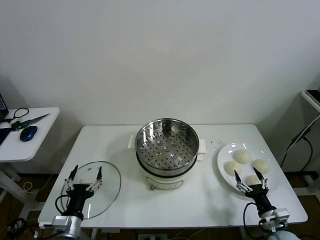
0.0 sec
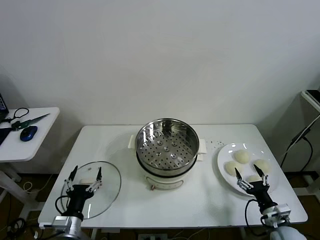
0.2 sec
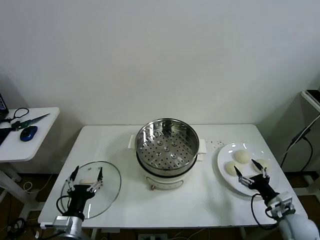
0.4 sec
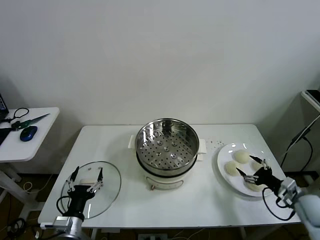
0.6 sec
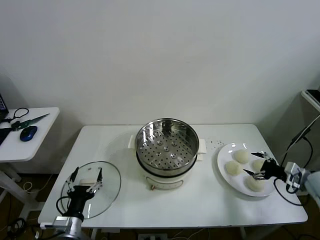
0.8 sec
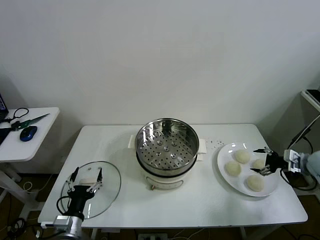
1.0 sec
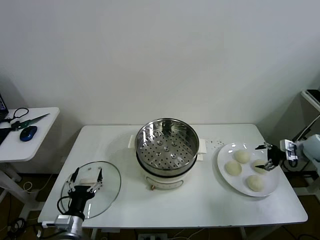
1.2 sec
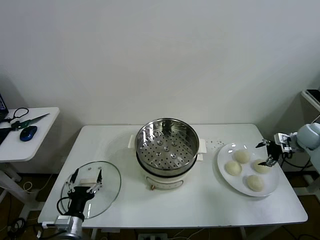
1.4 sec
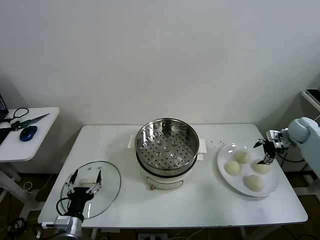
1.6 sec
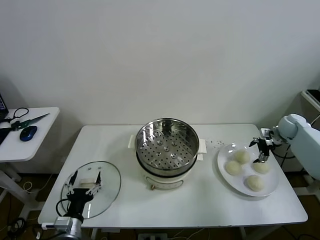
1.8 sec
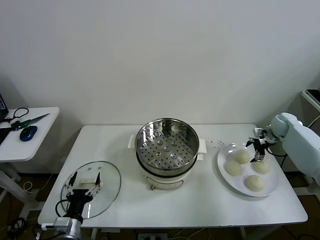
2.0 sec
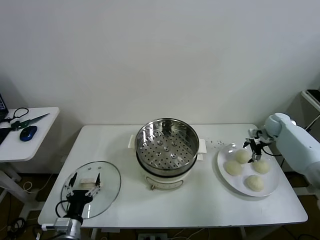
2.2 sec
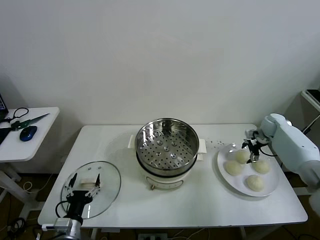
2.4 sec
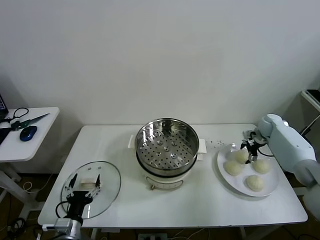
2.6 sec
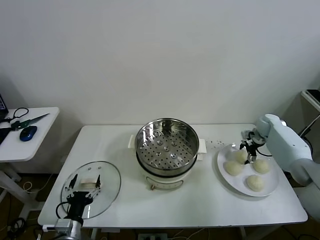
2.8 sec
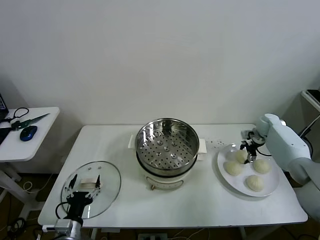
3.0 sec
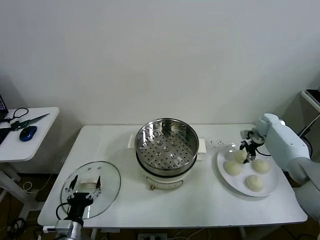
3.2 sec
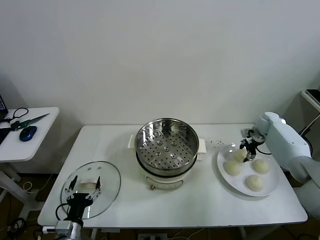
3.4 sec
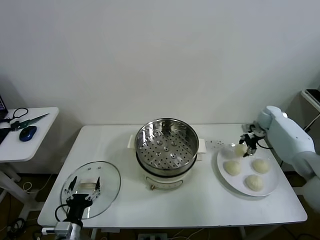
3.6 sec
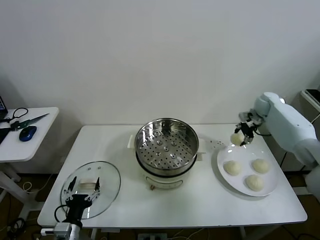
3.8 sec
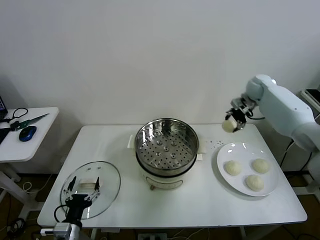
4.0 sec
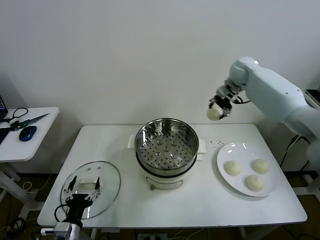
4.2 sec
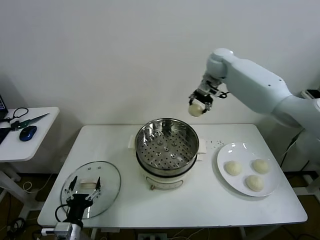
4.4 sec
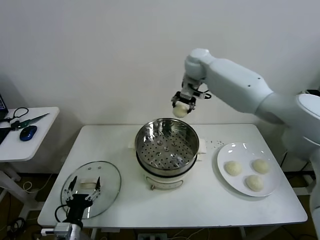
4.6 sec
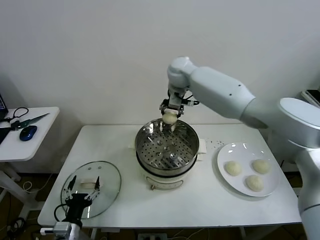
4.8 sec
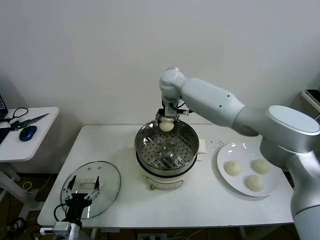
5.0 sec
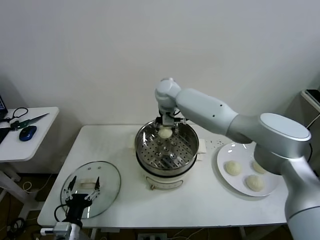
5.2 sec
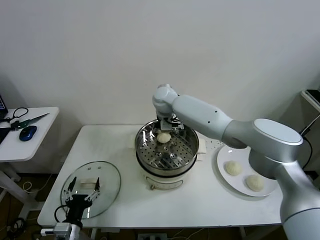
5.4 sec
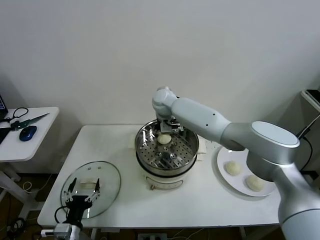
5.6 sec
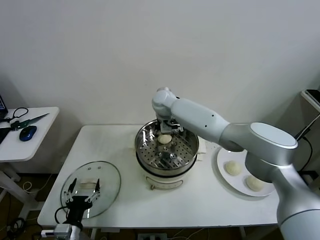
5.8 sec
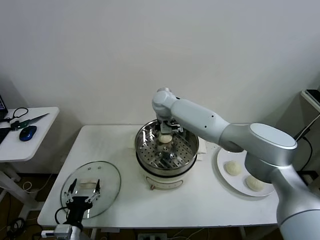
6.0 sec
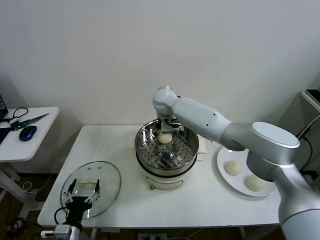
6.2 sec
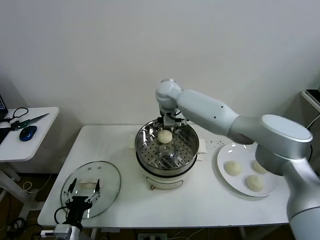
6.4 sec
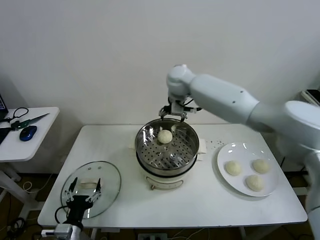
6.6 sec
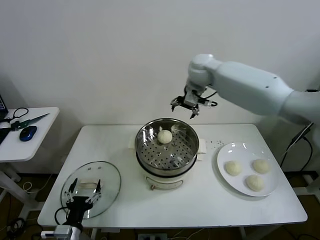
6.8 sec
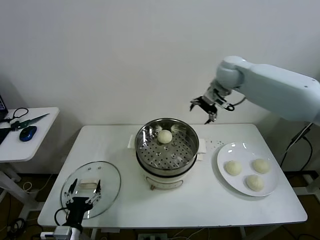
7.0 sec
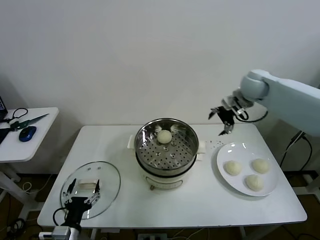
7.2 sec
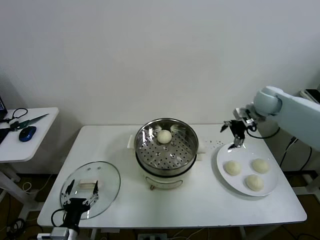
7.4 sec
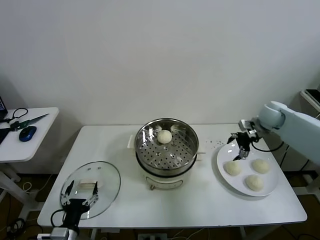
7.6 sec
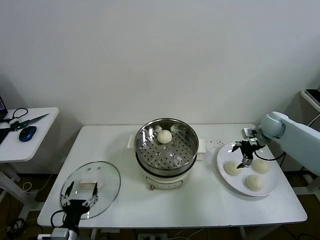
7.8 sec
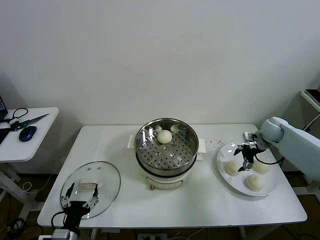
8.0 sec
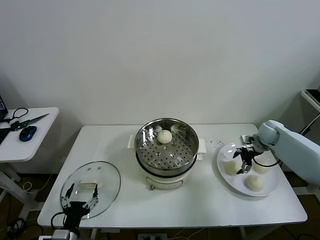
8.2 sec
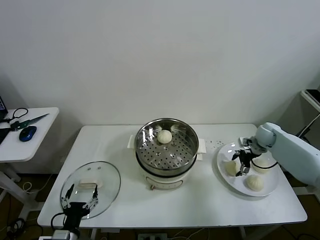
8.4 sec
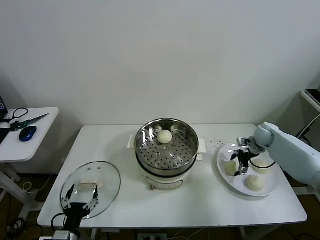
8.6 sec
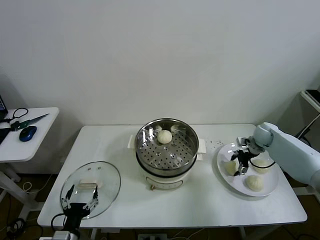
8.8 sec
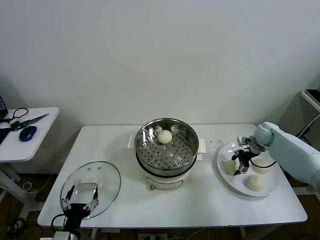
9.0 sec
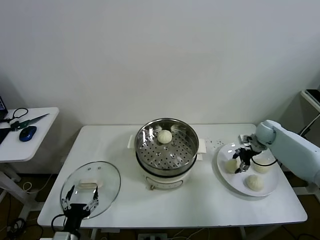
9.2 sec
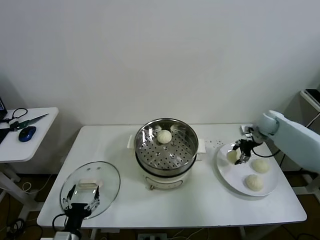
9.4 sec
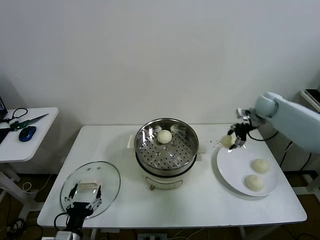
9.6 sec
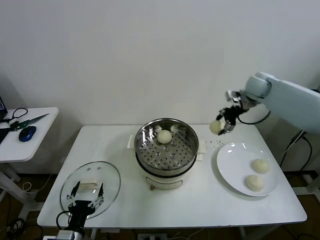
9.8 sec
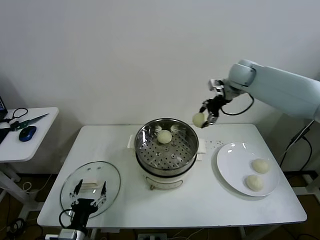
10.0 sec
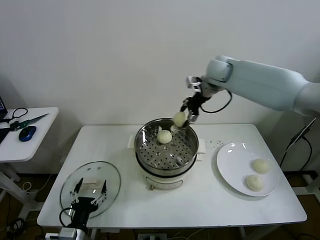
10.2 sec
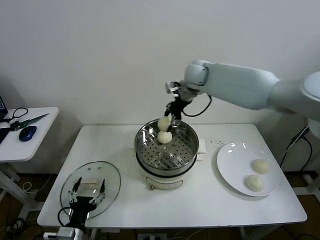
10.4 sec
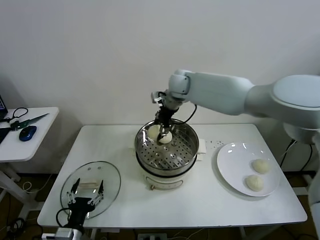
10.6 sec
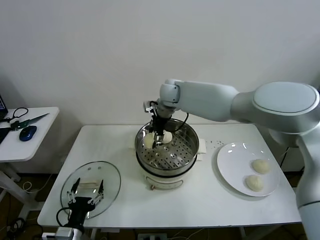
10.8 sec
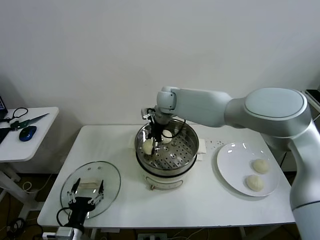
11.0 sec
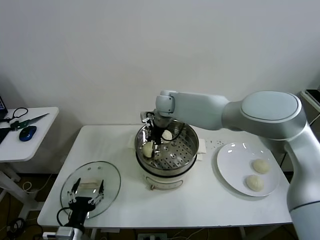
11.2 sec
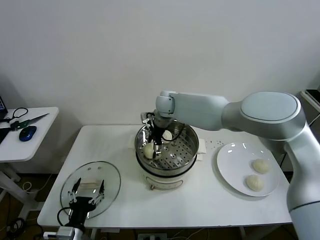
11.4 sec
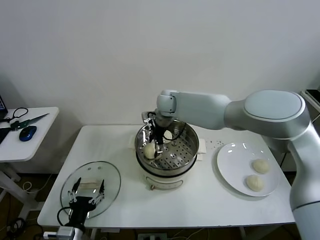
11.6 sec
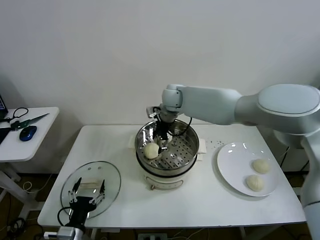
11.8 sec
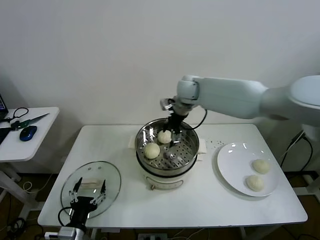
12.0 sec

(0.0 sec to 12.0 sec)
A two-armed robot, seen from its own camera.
Task of the whole recording: take steamed baozi put them in steamer then cover it.
Step, 0.0 sec - 3.2 sec: Grasp the baozi in the plate with right gripper.
Step, 3.4 sec - 6.2 sec: Place the baozi on the steamer with right gripper.
Step, 6.4 sec - 9.0 sec: Grasp the baozi in the plate with right gripper.
Step, 9.2 sec - 11.4 sec: Place the baozi on the steamer with right gripper.
1.6 sec - 3.0 sec: The right gripper goes about 10 cm to the left and forward, and closes up.
3.0 sec - 4.4 sec: The right gripper is displaced to the left and upward by some 40 cm.
4.4 sec - 6.0 sec: The right gripper heads to the left and downward, covering approximately 20 cm, and opens.
6.0 sec - 7.6 sec: The right gripper shifts approximately 40 cm to the right.
7.6 sec - 9.0 sec: The right gripper travels downward by about 10 cm, and closes its fingers.
9.0 sec - 10.4 sec: The right gripper heads to the left and upward, covering approximately 40 cm.
10.4 sec - 12.0 sec: The right gripper reaches approximately 10 cm downward, then returns, and opens.

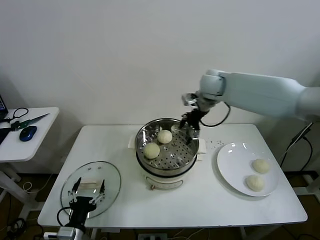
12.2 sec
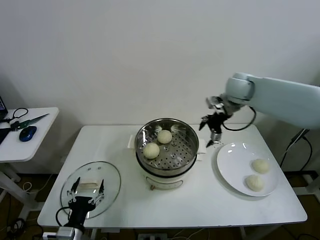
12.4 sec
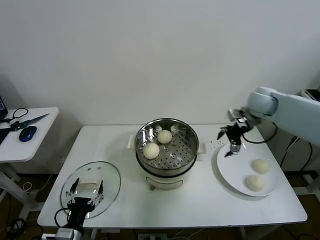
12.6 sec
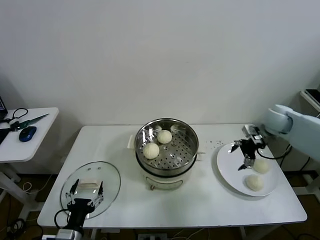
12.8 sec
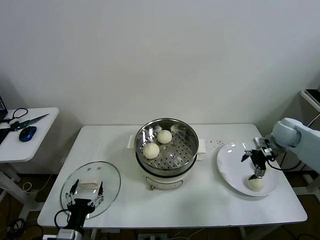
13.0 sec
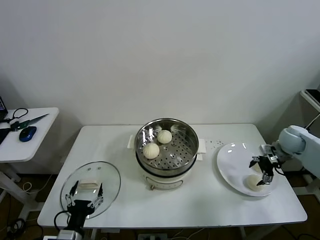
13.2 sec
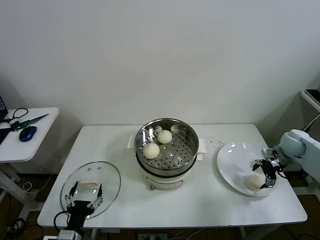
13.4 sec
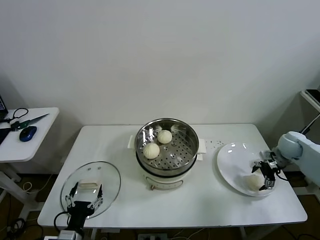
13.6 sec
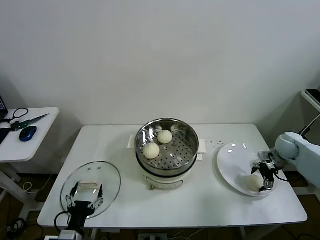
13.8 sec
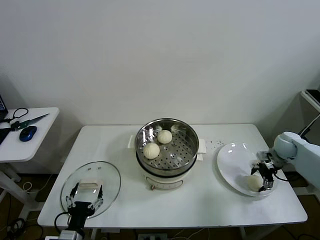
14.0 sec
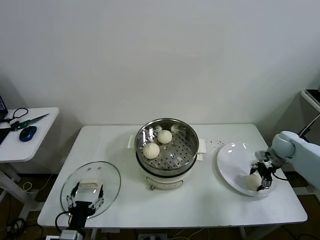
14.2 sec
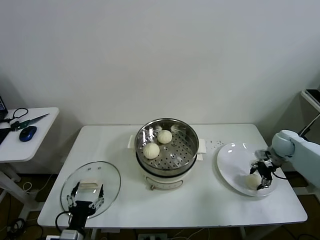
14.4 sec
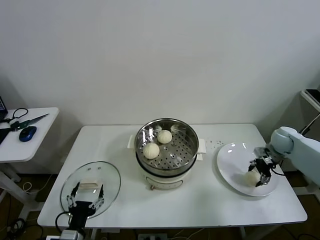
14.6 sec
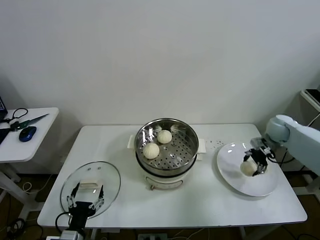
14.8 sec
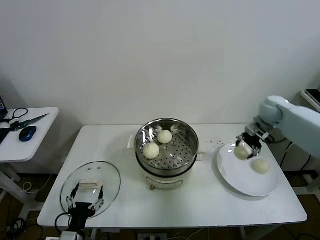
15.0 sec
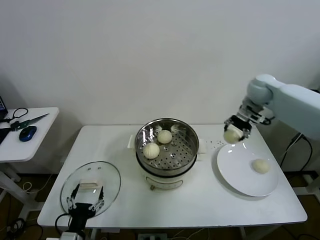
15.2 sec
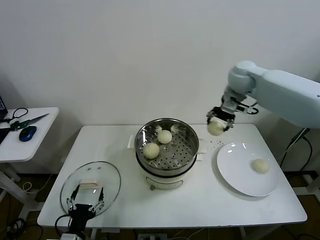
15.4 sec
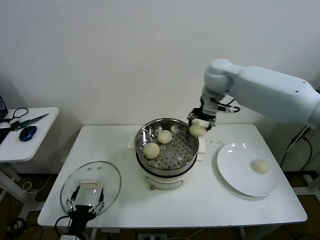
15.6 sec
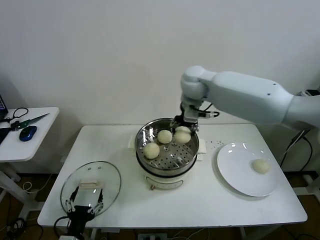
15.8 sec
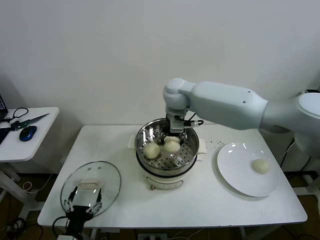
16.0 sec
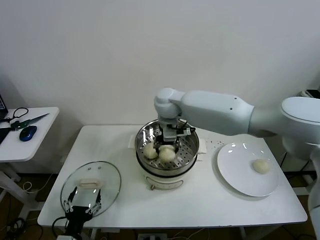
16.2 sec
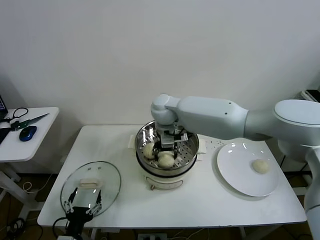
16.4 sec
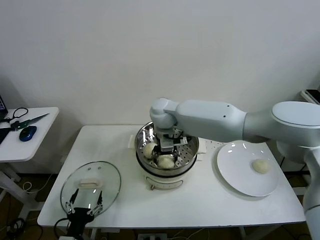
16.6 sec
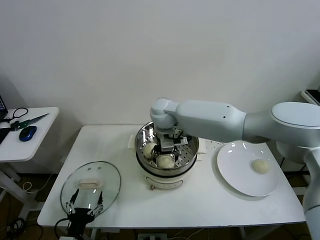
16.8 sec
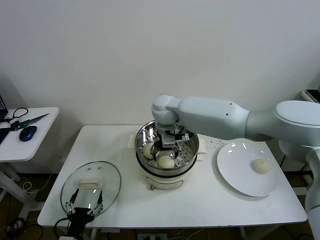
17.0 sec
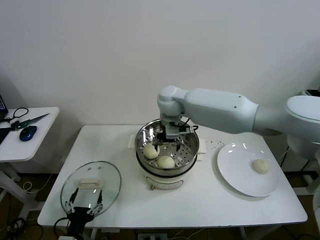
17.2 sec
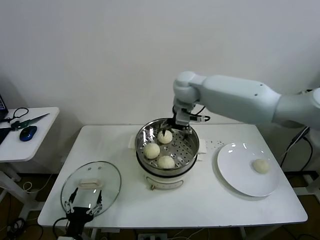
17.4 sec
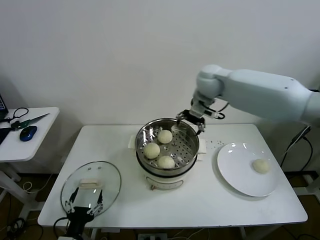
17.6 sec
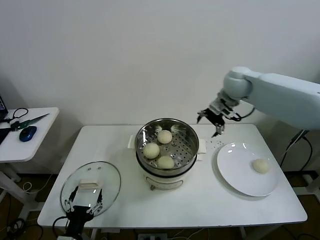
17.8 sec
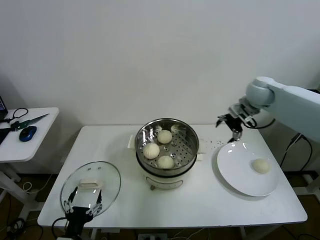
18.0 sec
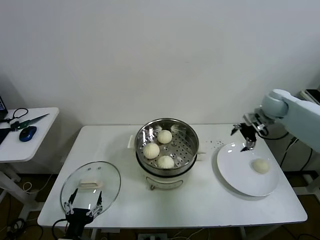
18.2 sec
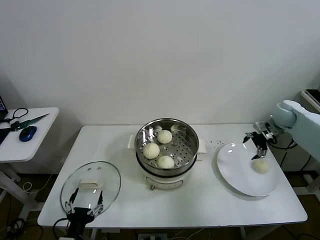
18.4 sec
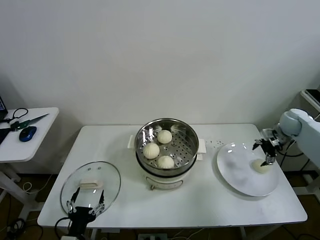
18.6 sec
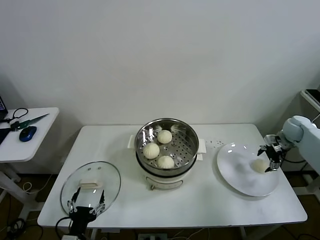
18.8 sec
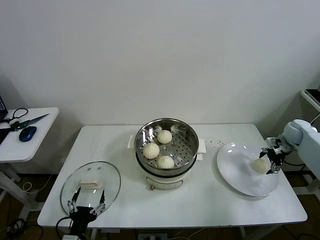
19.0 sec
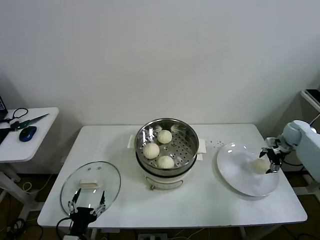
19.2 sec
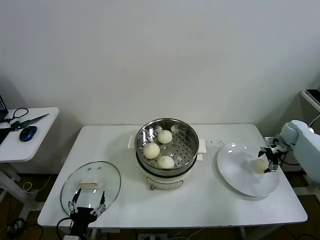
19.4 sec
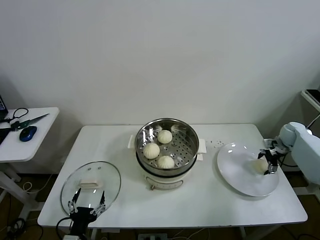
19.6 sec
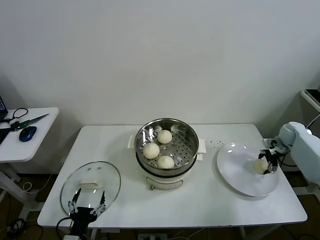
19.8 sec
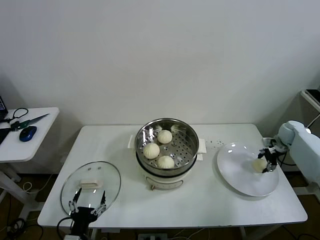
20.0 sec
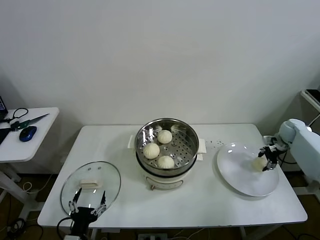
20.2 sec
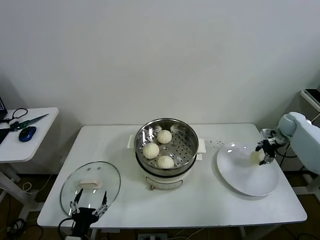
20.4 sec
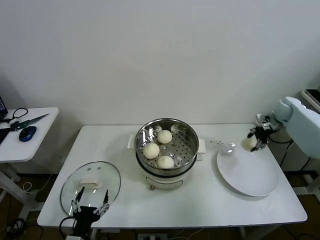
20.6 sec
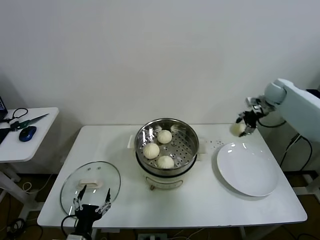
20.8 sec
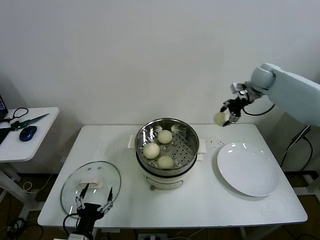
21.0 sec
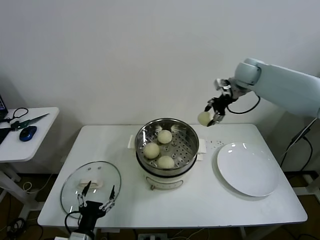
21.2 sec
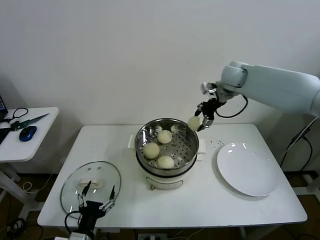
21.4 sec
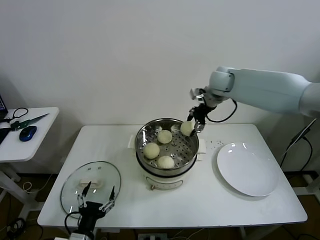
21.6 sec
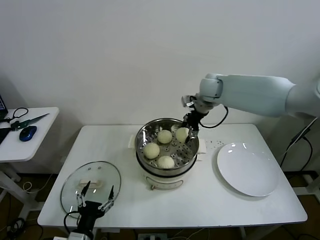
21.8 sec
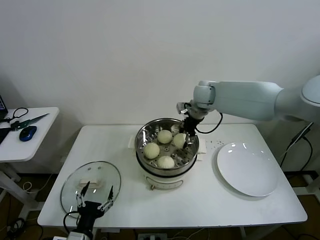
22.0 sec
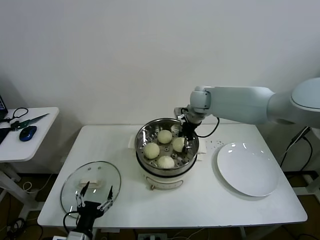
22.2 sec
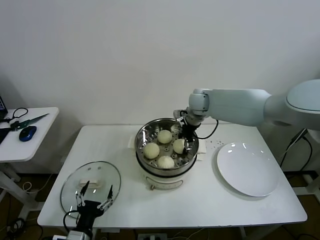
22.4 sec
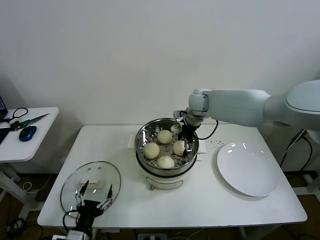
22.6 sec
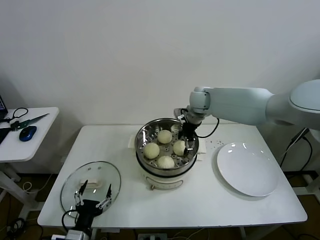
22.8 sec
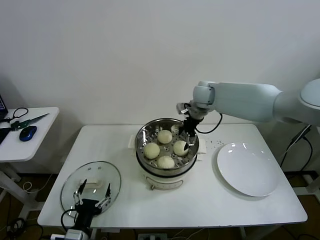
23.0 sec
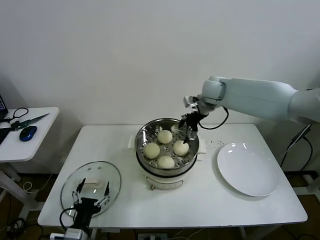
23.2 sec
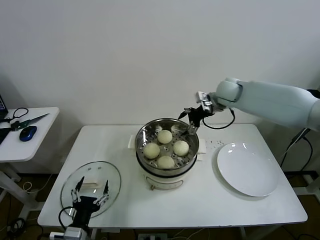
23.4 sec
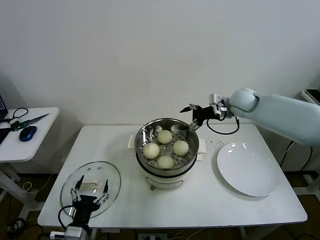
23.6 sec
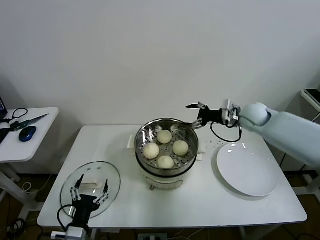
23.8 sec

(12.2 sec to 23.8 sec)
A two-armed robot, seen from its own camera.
Task of the whole recording: take steamed baozi put them in steamer then cover it.
Step, 12.2 sec - 14.4 sec: Grasp the baozi in the plate with right gripper.
Step, 14.6 sec - 17.0 sec: Place the baozi on the steamer with right gripper.
Step, 17.2 sec - 20.0 sec: Grasp the baozi in the plate with right gripper.
Step, 20.4 sec - 22.6 sec: Place the baozi on the steamer with right gripper.
12.2 sec - 13.6 sec: The right gripper moves to the right and downward, approximately 35 cm.
13.6 sec - 15.0 sec: The right gripper travels upward, to the left and forward by about 15 cm, and closes.
15.0 sec - 16.6 sec: The right gripper travels to the left by roughly 40 cm, and opens.
16.6 sec - 18.0 sec: The right gripper moves to the right, about 35 cm, and opens up.
18.0 sec - 19.4 sec: The right gripper travels to the right and downward by roughly 25 cm.
19.4 sec - 21.0 sec: The right gripper is displaced upward and to the left by roughly 25 cm, and closes its fingers.
21.0 sec - 22.4 sec: The right gripper goes some 20 cm to the left.
22.4 sec - 23.8 sec: The right gripper goes some 20 cm to the right, and opens its fingers.
